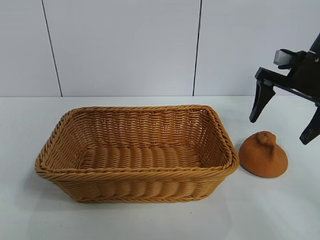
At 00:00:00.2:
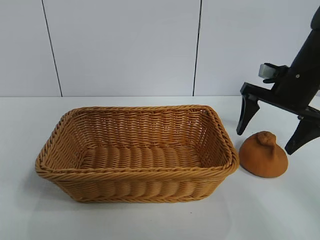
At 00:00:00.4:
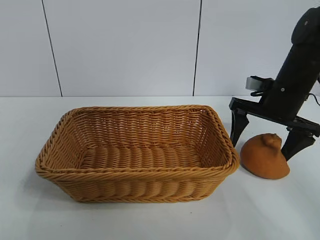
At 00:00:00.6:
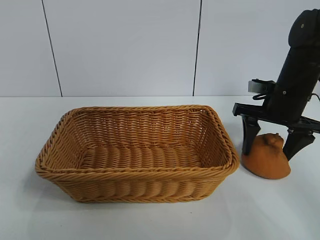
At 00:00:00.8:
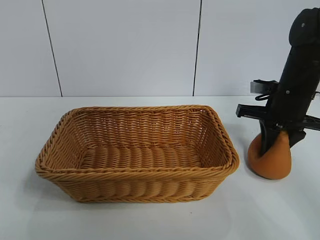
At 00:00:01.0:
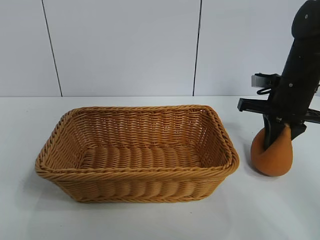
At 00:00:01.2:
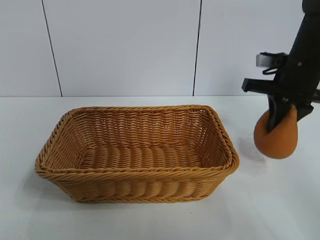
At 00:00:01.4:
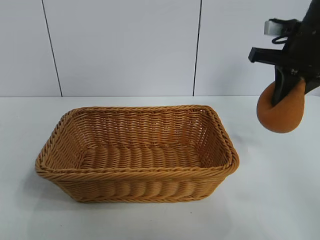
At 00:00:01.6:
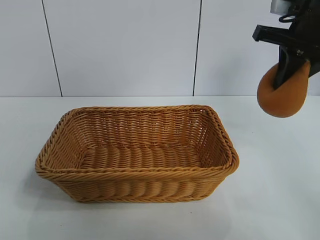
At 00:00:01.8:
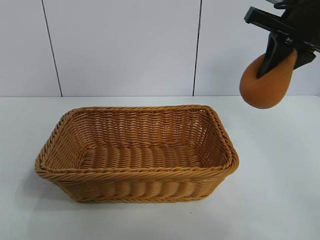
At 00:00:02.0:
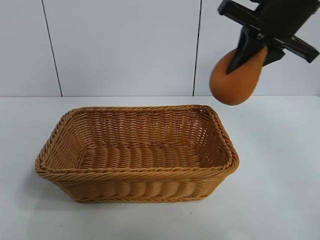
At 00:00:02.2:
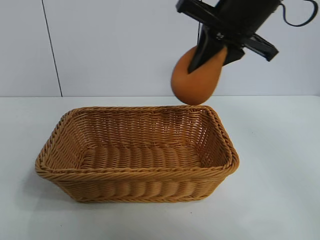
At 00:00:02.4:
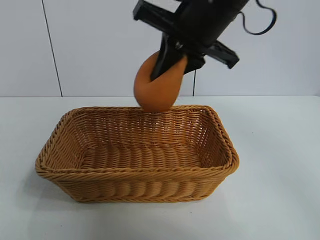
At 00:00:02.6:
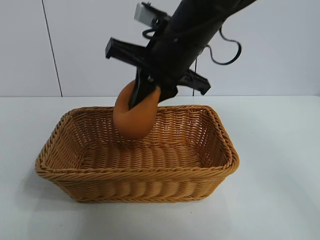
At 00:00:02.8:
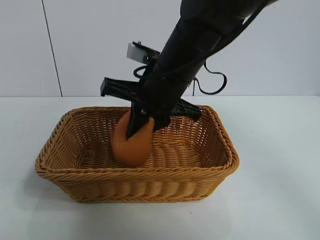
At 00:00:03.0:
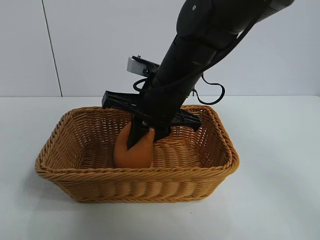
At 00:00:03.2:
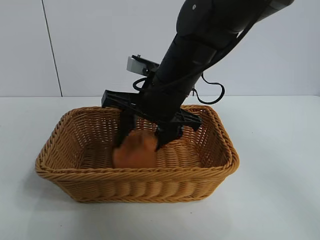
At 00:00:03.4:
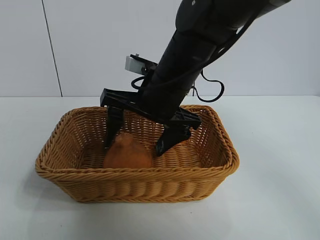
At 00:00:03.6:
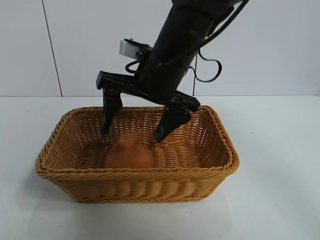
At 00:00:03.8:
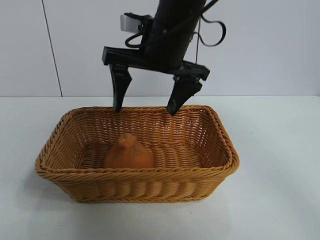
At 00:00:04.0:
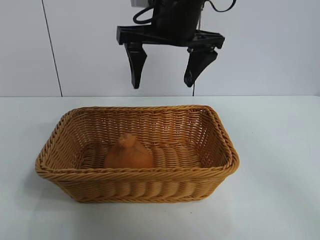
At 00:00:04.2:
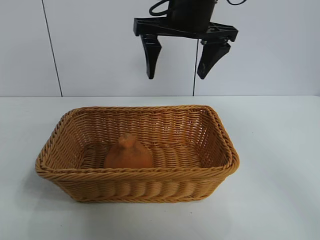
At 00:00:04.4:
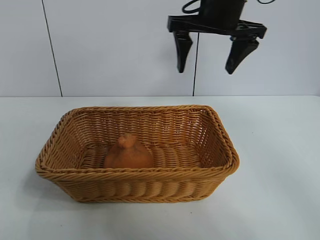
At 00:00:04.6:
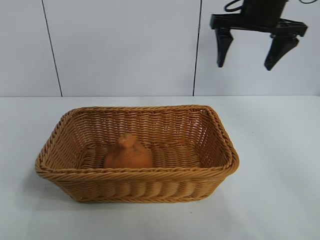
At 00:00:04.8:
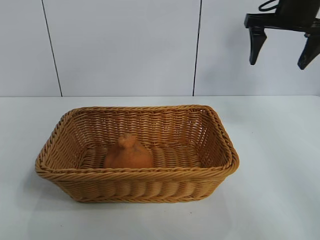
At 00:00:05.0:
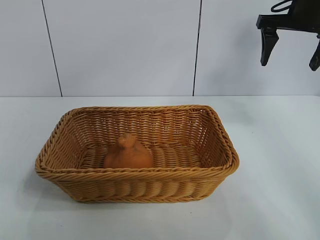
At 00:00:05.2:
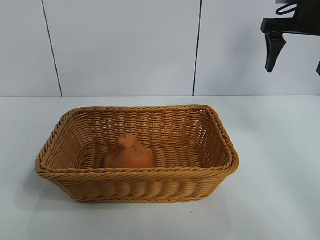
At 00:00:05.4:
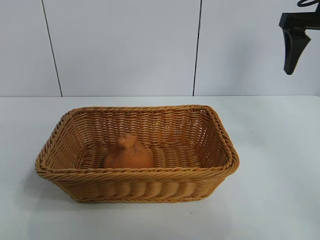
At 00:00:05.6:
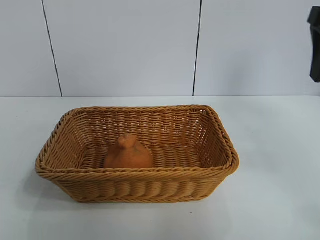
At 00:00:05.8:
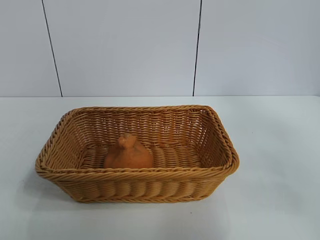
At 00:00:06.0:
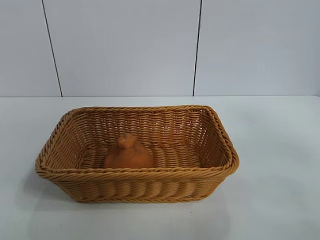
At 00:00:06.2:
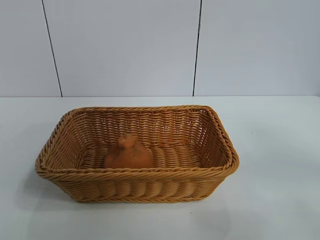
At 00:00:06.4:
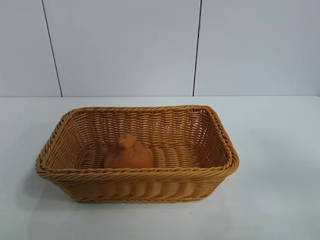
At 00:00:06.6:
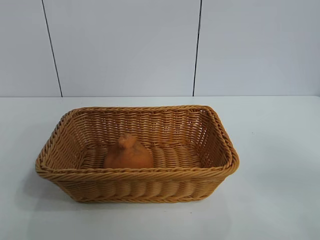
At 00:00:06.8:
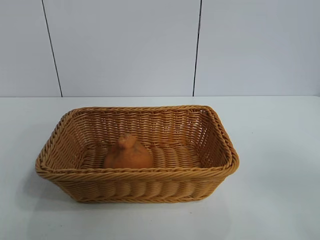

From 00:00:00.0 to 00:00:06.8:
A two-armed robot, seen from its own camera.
Task of the whole recording: pick up the orange and put it into the basket.
Step, from 00:00:01.2 to 00:00:03.4: Place the orange in the basket with right gripper.
